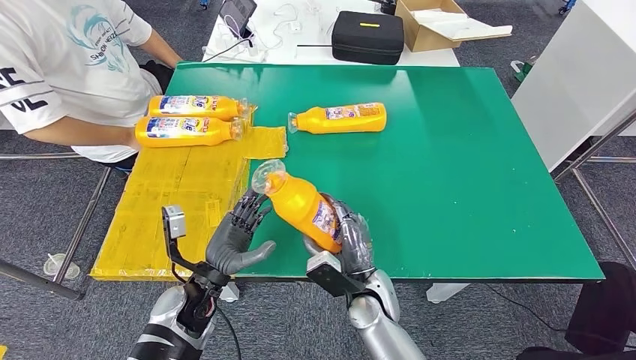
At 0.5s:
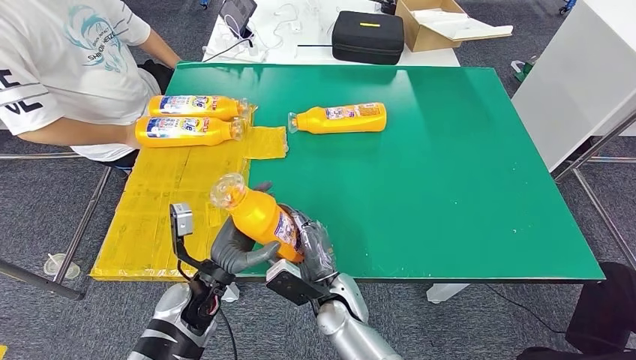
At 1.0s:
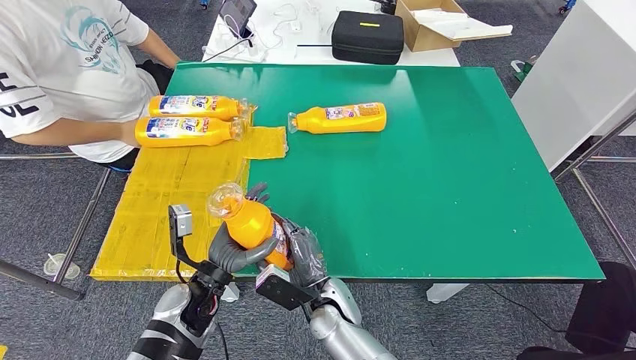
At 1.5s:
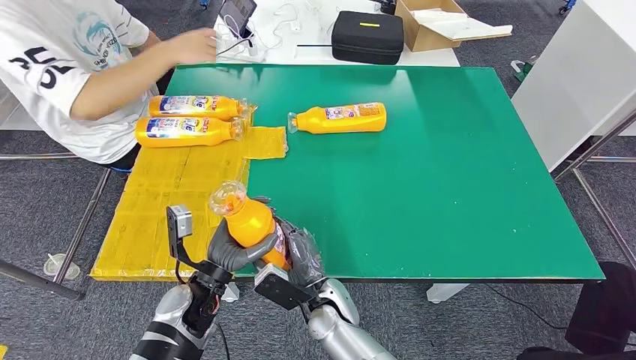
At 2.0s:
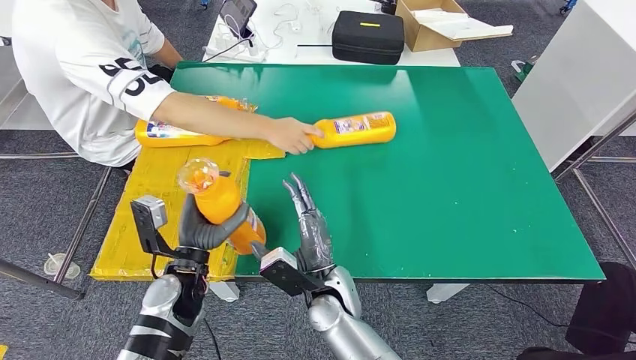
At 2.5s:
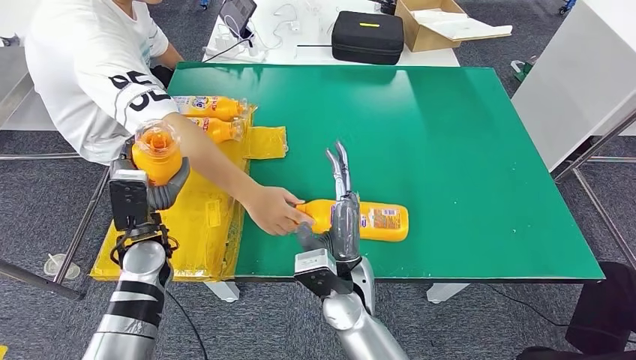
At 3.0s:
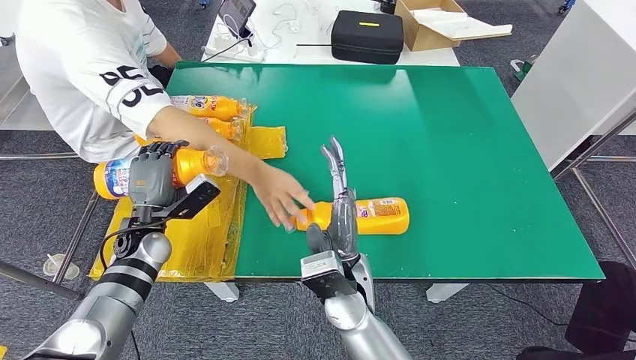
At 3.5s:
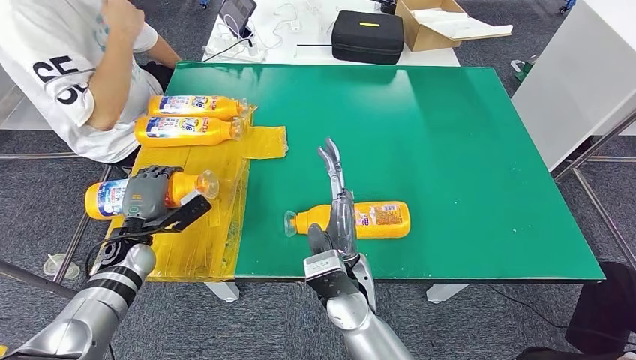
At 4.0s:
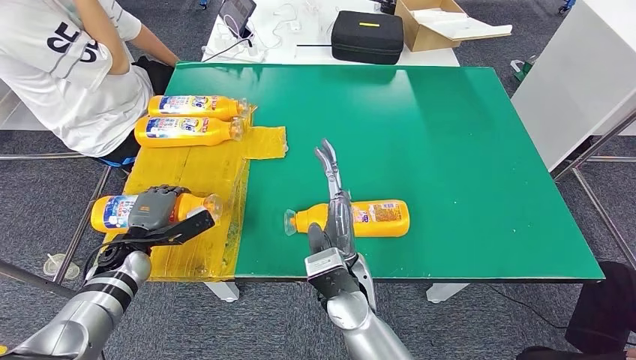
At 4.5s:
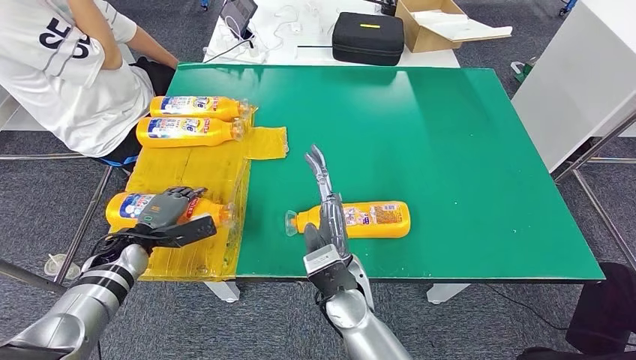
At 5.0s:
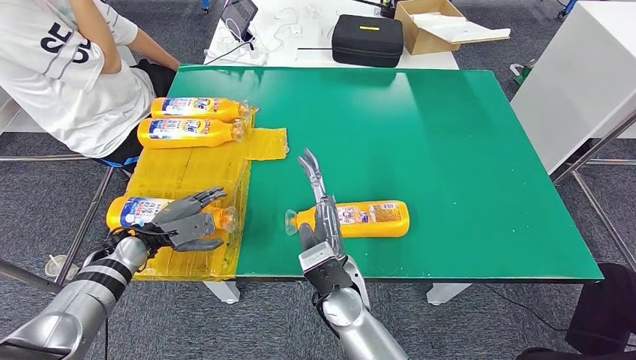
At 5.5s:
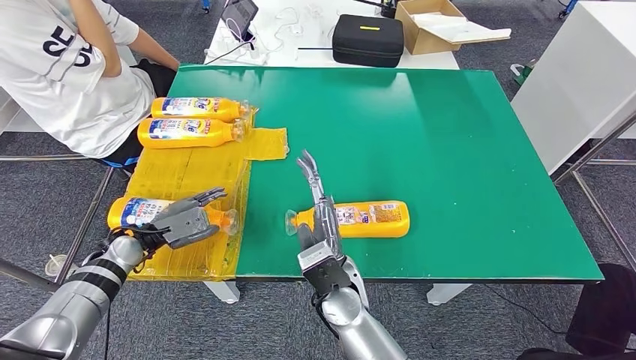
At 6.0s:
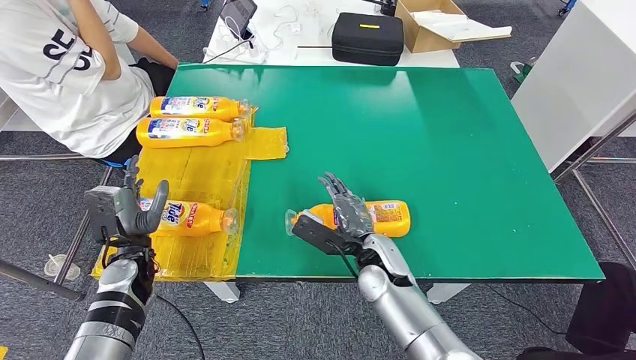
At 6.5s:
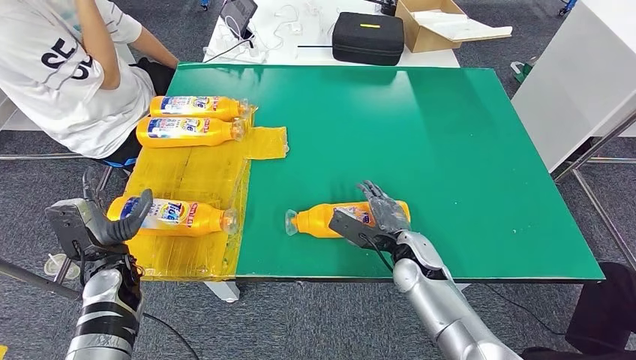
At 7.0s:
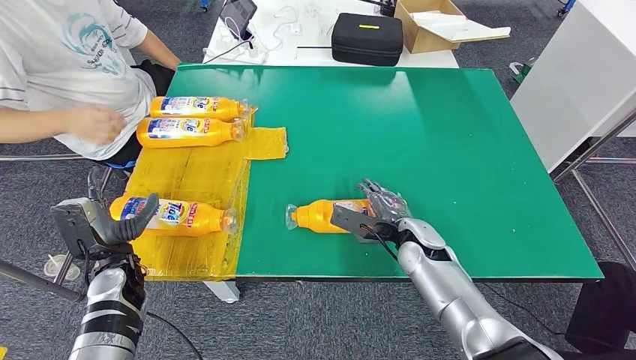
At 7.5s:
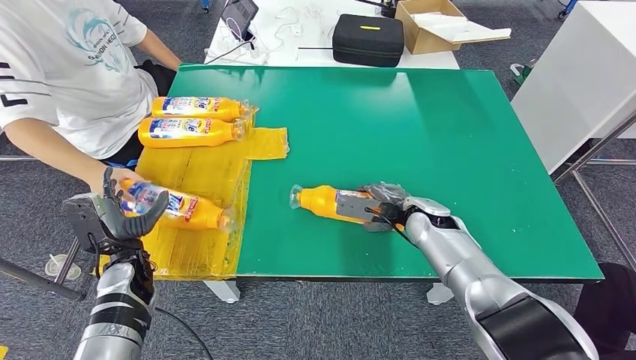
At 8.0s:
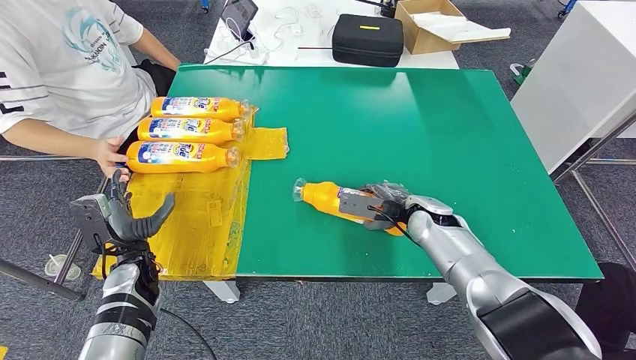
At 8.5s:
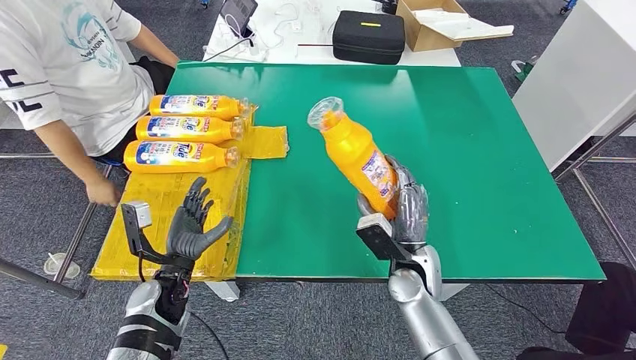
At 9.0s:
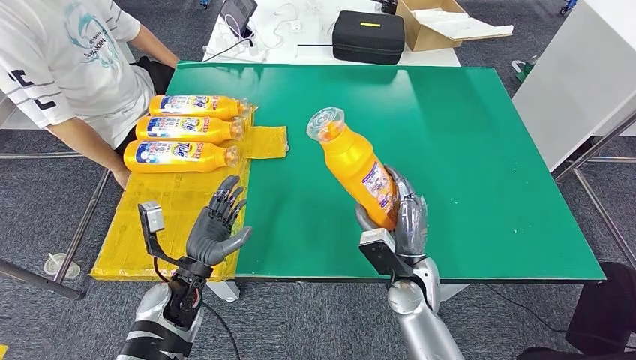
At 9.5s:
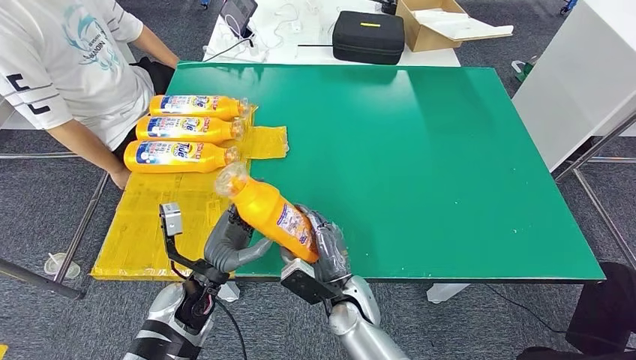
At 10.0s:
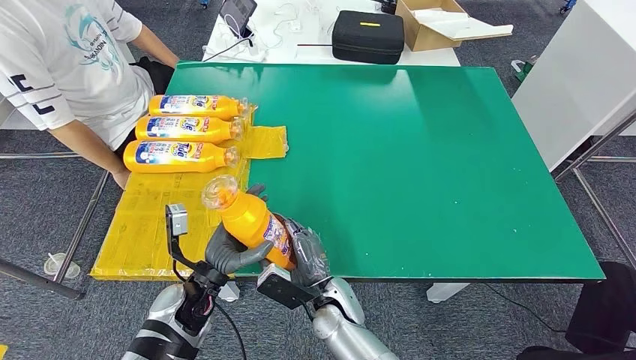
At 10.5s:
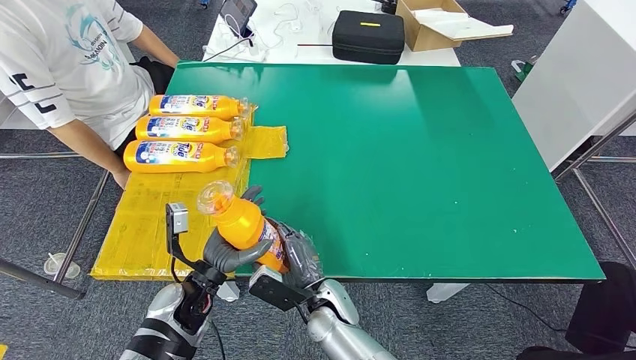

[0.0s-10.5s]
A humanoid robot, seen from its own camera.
Step, 1.5s to 4.5s: Flip the fast-moving consumer goods bottle to the front side.
Step, 5.0s to 9.5s: Pick up the fast-moving consumer goods bottle from the table.
4.0s to 6.5s: The right hand is displaced to the right, forward and downward by approximately 20 cm; the left hand shifts by about 5 cm.
8.5s to 10.5s: The left hand changes place by roughly 5 cm; the right hand is displaced to the left by about 15 cm.

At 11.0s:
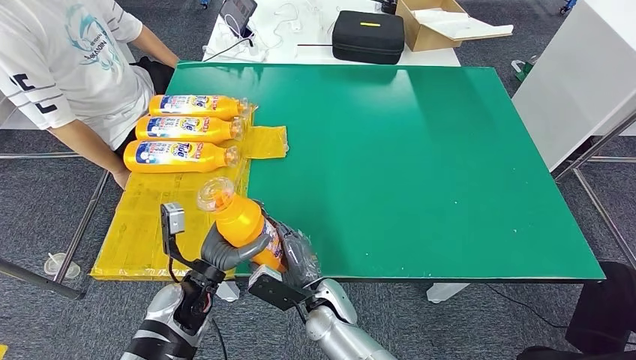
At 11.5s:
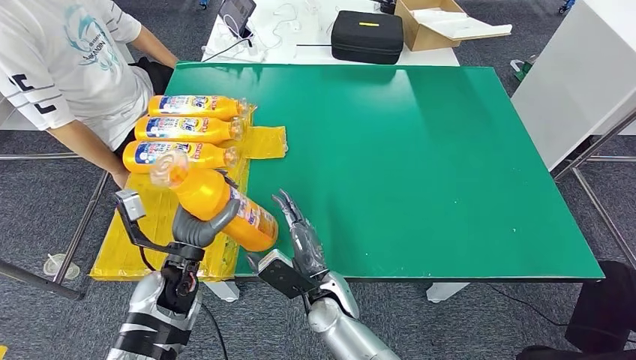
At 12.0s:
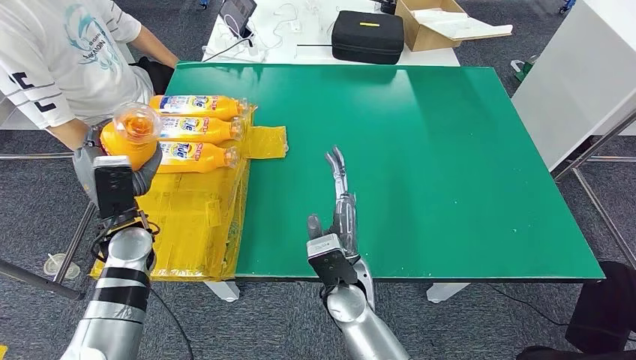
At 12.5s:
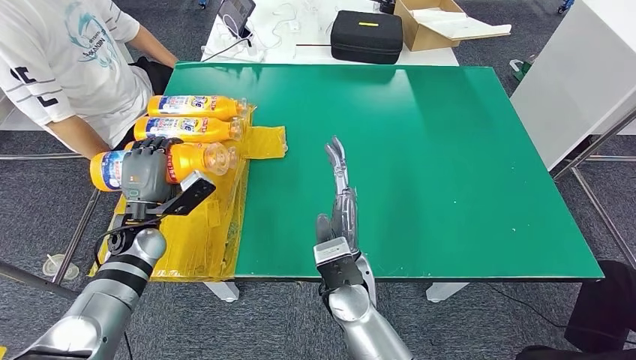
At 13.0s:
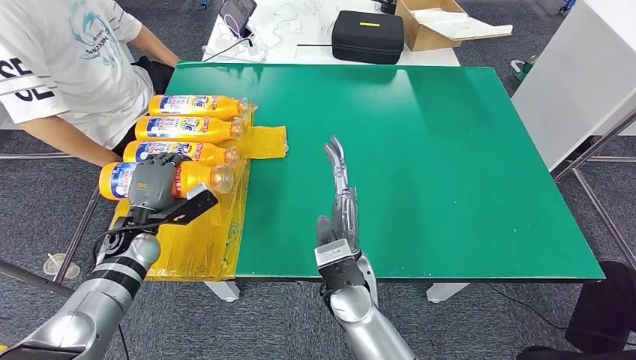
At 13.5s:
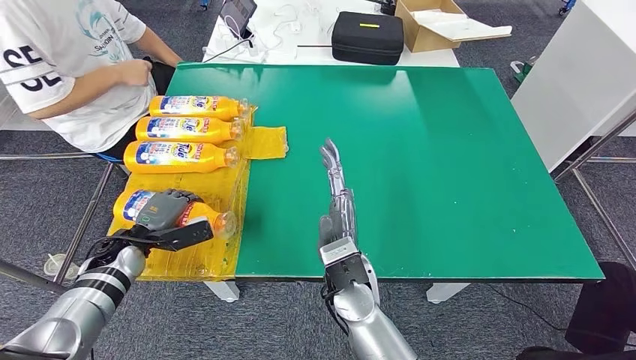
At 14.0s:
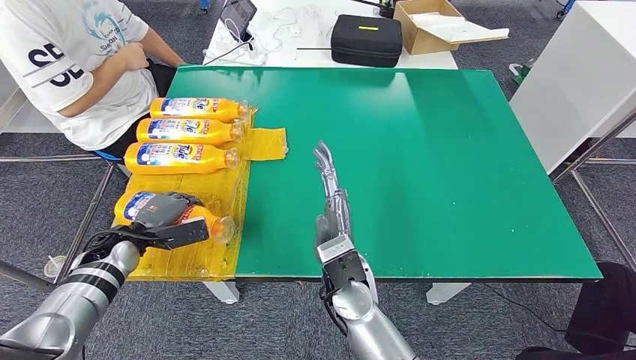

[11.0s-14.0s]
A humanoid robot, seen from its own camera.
Step, 11.0s to 14.0s: Flip the fast-moving consumer goods bottle to the front side.
11.0s to 12.5s: The right hand moves upward, about 10 cm. The left hand shifts some 15 cm to the left and forward.
